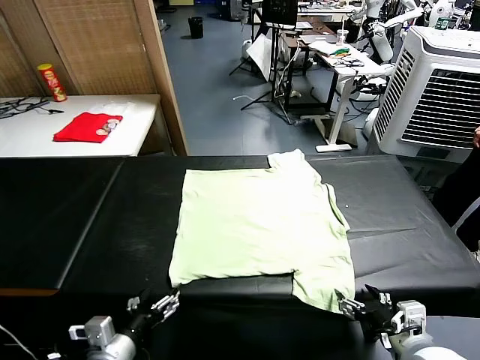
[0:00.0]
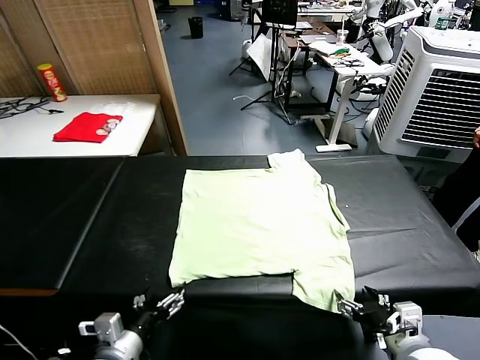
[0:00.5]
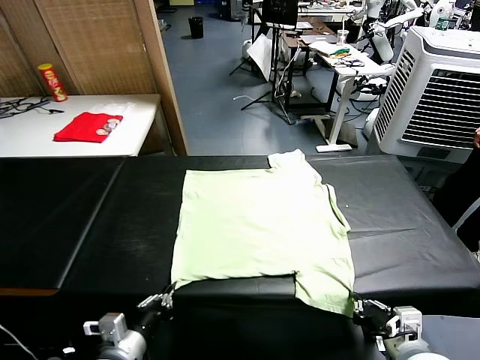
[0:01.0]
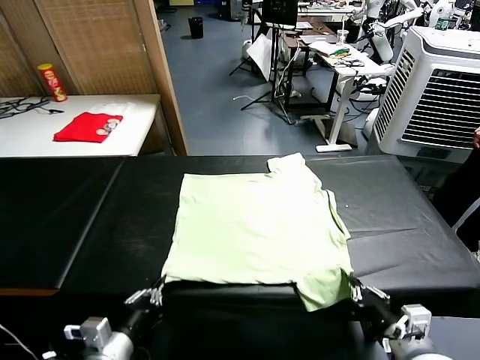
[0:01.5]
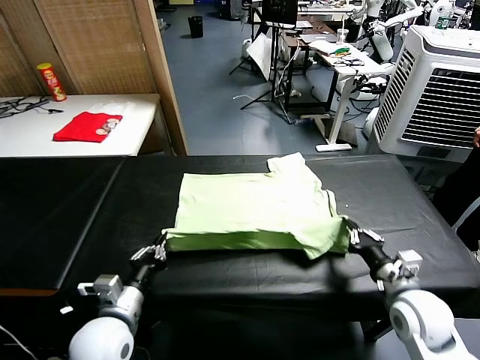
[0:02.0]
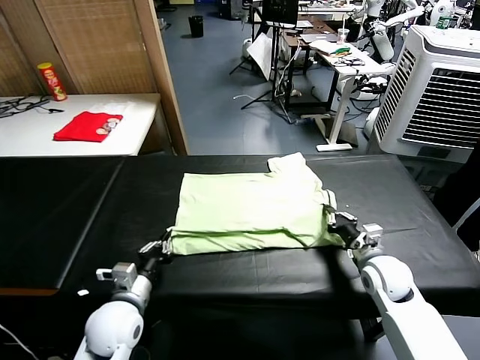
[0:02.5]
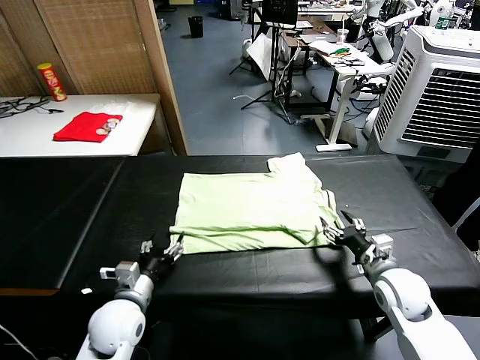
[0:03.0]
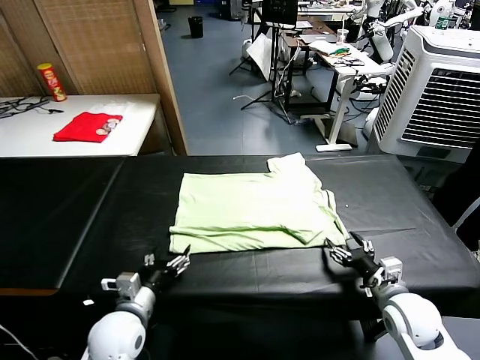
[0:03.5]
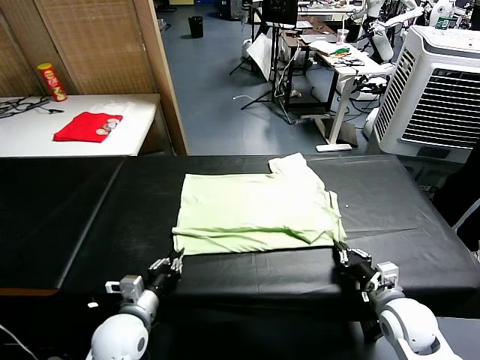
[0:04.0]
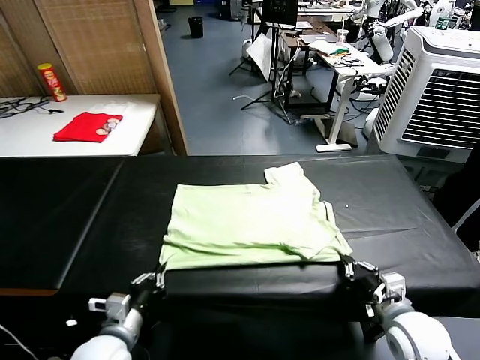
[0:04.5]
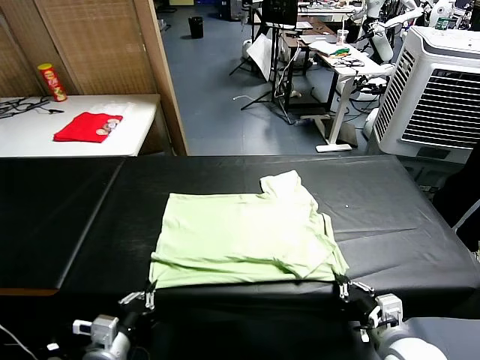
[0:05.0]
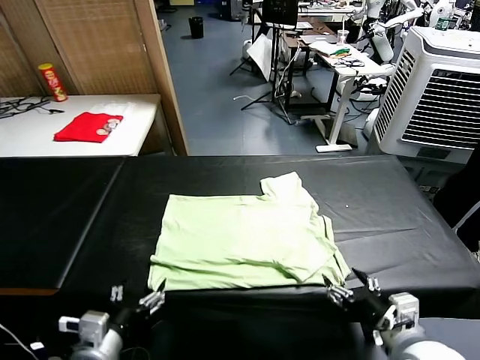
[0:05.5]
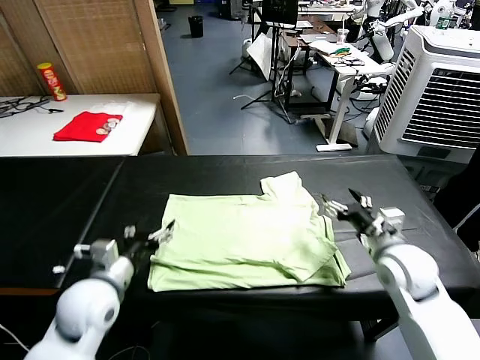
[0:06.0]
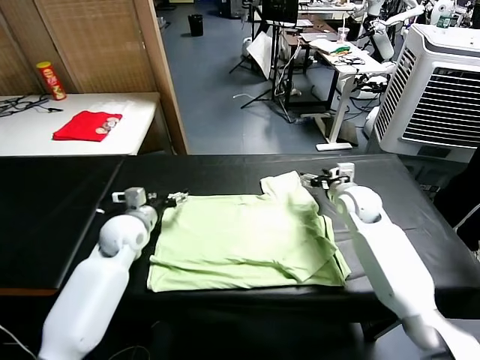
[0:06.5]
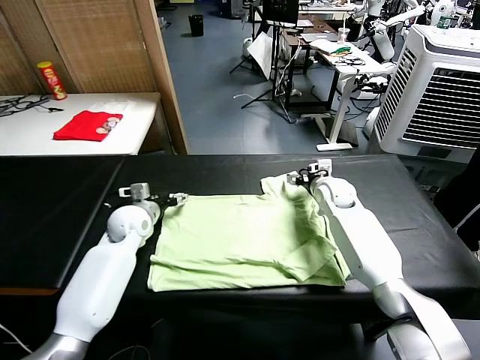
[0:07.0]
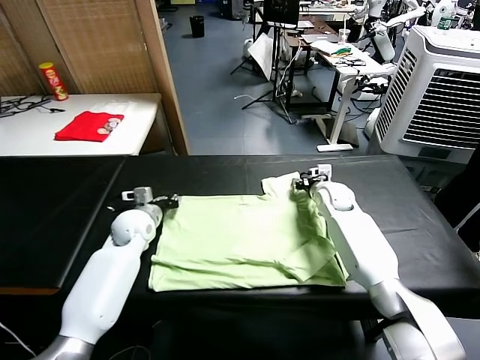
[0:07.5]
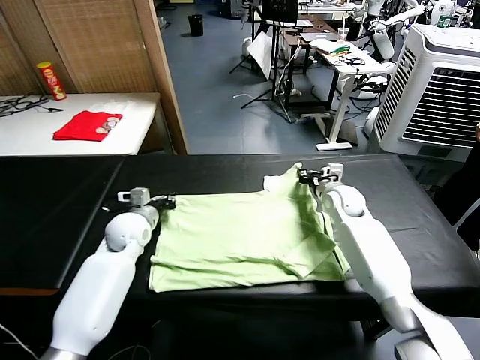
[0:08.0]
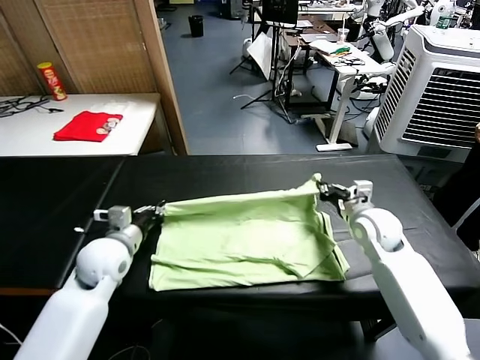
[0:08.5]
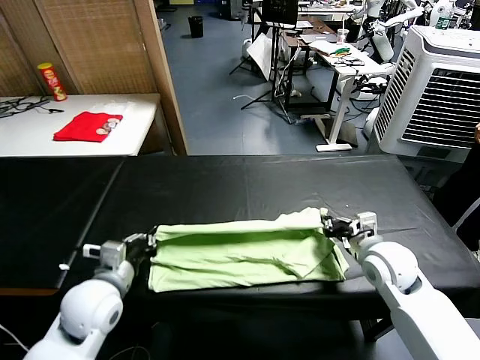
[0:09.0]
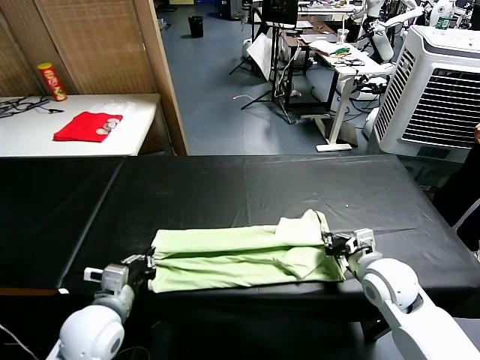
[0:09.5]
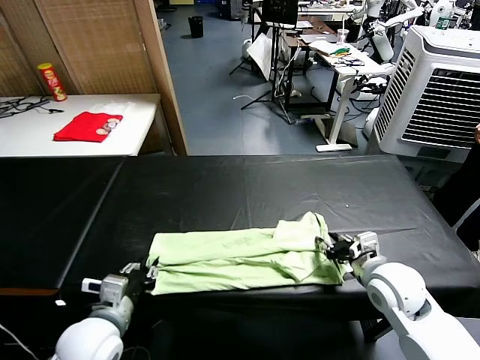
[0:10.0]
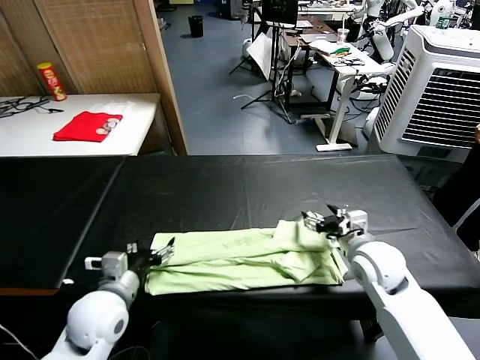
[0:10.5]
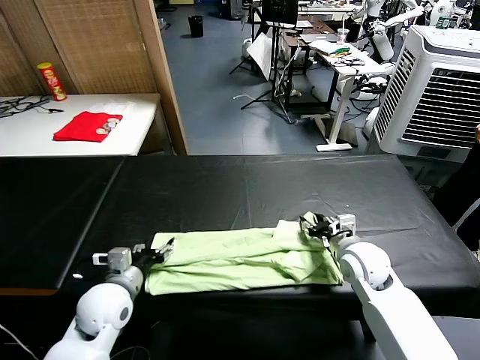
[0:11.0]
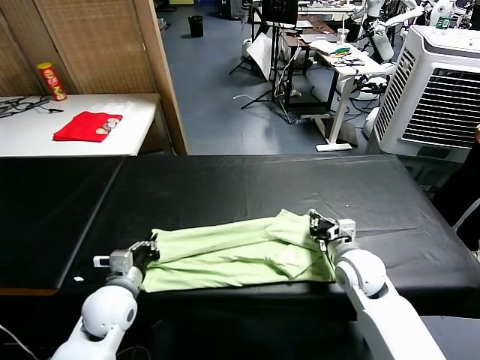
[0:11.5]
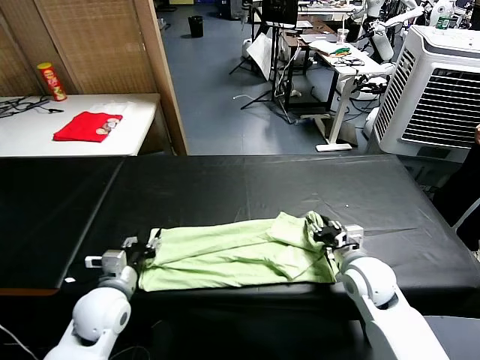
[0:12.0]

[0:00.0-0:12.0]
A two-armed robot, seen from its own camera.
Task of the whole recording: fold and organize the clothes.
Step, 0:00.0 to 0:01.0: use both grippers simultaneously to clamp the lower edge of the clothing fabric.
Step, 0:01.5 to 0:02.5: use both grippers to drag the lower edge of the fabric forward and fold it over the upper edge.
Step, 0:03.5 to 0:05.0: Drag the clothes downward with both gripper.
Step, 0:05.5 to 0:07.5: use both grippers simultaneously to clamp the upper edge of the clothing fabric.
Step, 0:08.0 to 0:10.0: use both grippers to drag the upper edge of the fabric backward and fold it over the lower edge.
0:02.0 to 0:04.0: The left gripper shifts by some 5 cm, and opens, then closes again. The right gripper travels backward by approximately 10 cm, and opens, then closes again.
0:04.0 to 0:06.0: The right gripper shifts roughly 20 cm forward and upward, and opens up. Meanwhile the left gripper heads upward and forward, covering approximately 10 cm, and opens.
0:06.0 to 0:08.0: The left gripper shifts about 15 cm forward, and closes; the right gripper heads forward, covering about 10 cm, and closes up.
0:08.0 to 0:10.0: The grippers both shift backward by roughly 20 cm. The left gripper opens its fingers, while the right gripper opens up.
0:10.0 to 0:12.0: The right gripper closes, then opens again; the left gripper shifts roughly 5 cm forward, and closes, then reopens.

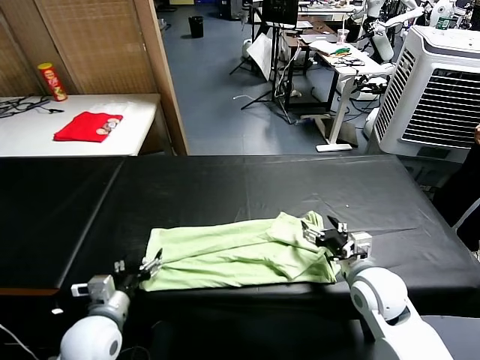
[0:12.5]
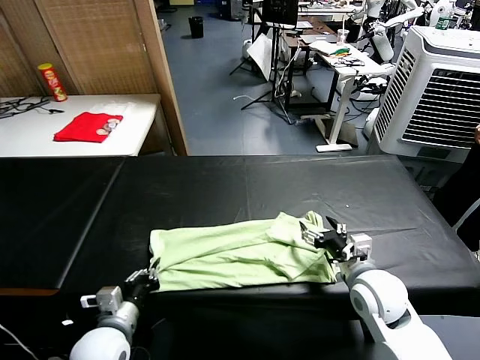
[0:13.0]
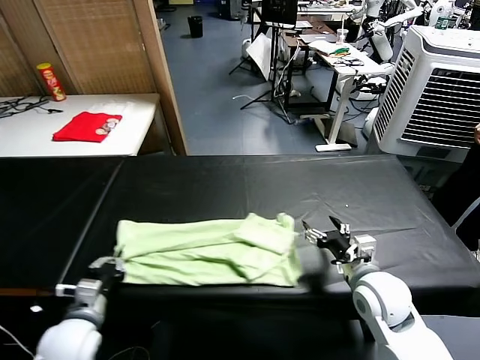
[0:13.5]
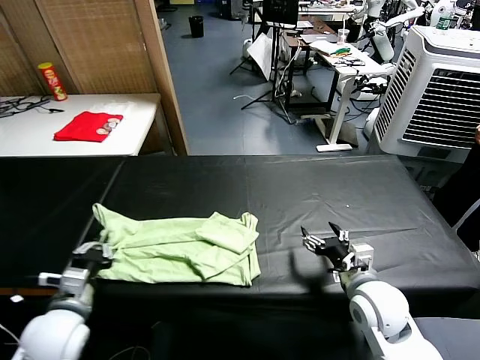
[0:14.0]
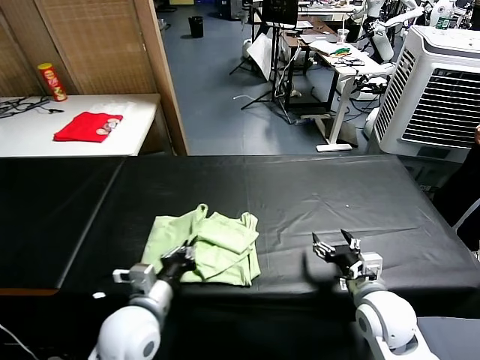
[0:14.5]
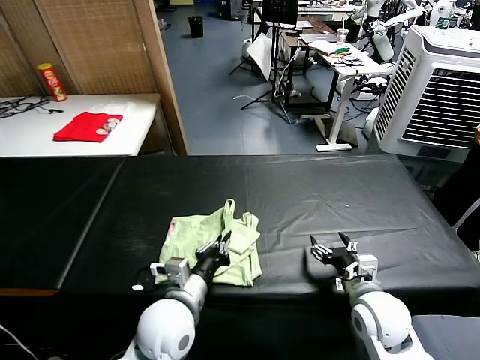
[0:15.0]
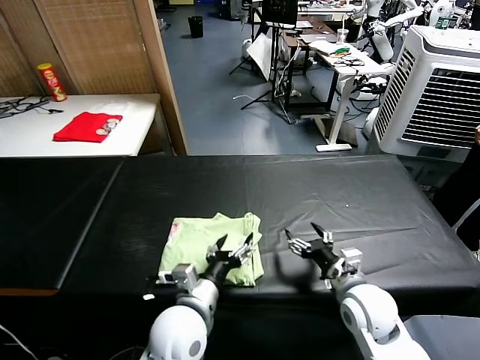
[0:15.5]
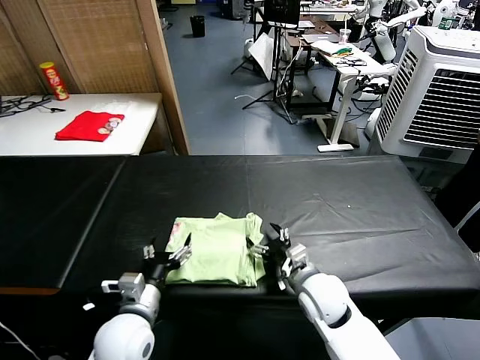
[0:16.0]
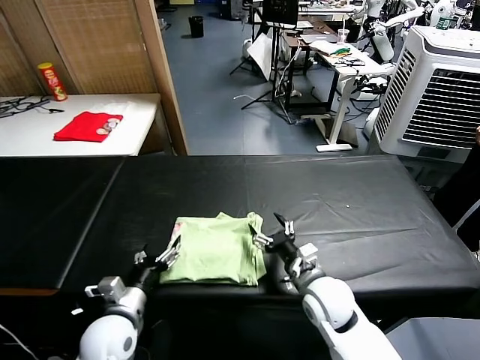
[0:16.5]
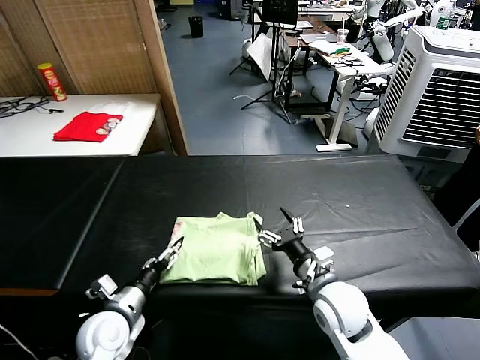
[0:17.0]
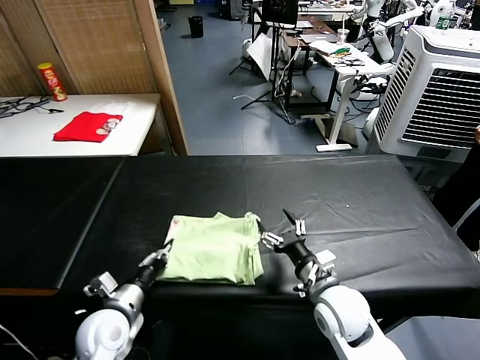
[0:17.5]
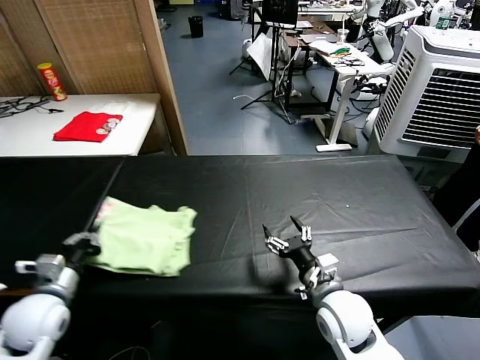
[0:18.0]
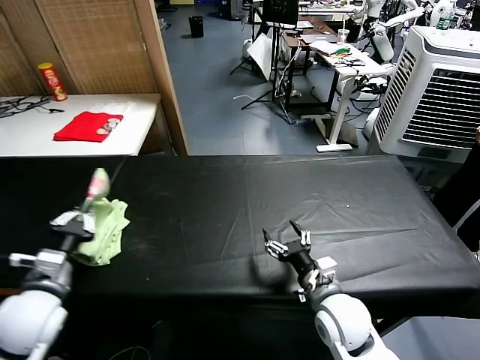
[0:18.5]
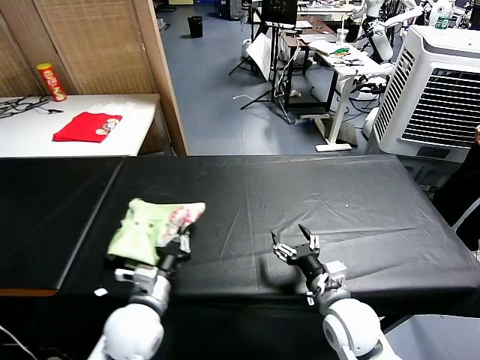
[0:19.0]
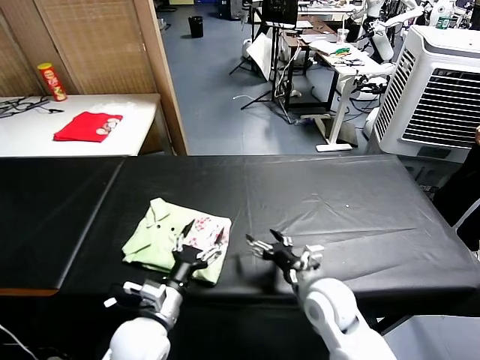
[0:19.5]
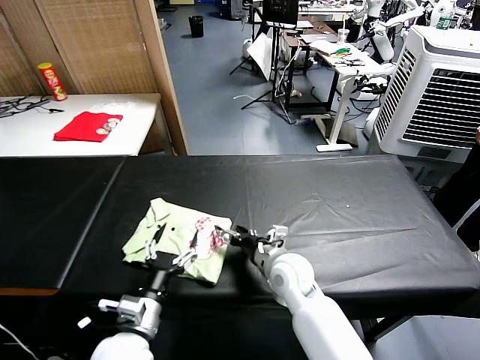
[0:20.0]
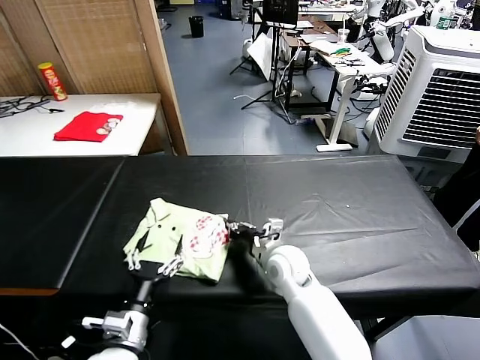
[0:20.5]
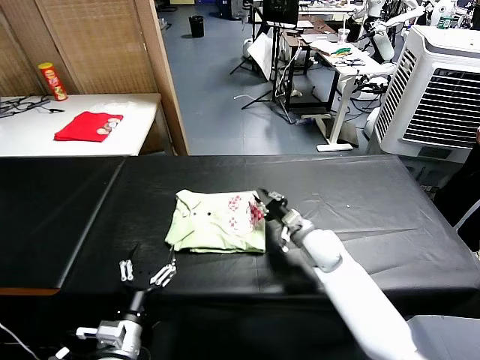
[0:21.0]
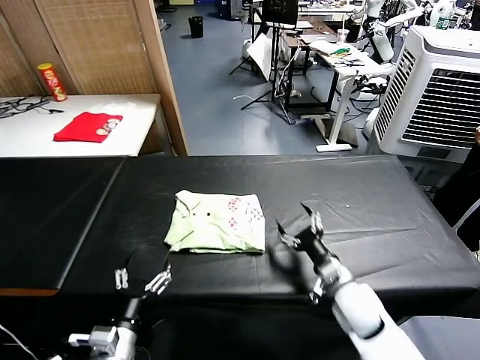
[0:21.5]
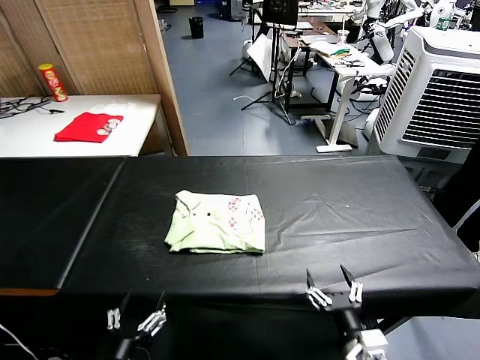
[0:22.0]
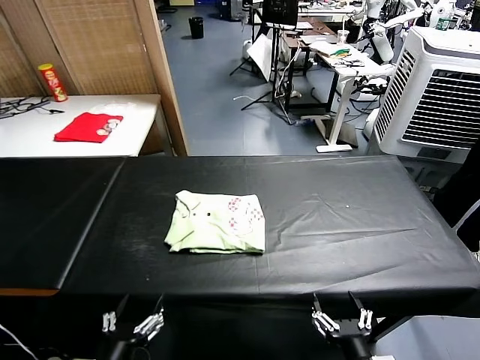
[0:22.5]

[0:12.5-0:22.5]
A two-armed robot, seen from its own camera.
Task of the whole recording: fold and organize the clothes.
Step, 0:13.5 to 0:15.0: use the left gripper to drag the left edge of the fabric to the left and folds it over the right edge.
Step, 0:15.5 to 0:19.0: Flip the folded clothes over with left gripper.
Step, 0:19.5 to 0:21.0: Drag the clothes to the center of the table.
0:12.5 to 0:14.5: The left gripper heads to the right, covering approximately 10 cm, and closes.
0:14.5 to 0:16.5: The left gripper shifts approximately 10 cm downward and to the left, and opens. Meanwhile the right gripper goes about 10 cm to the left.
0:16.5 to 0:18.5: The left gripper travels upward and to the left by roughly 15 cm, and closes up.
0:18.5 to 0:20.5: The right gripper heads forward and to the left, covering approximately 15 cm, and closes, while the left gripper is displaced to the right, downward and backward by some 20 cm, and opens its fingers.
0:20.5 to 0:22.5: The left gripper shifts some 10 cm backward, while the right gripper shifts approximately 30 cm backward, and opens up.

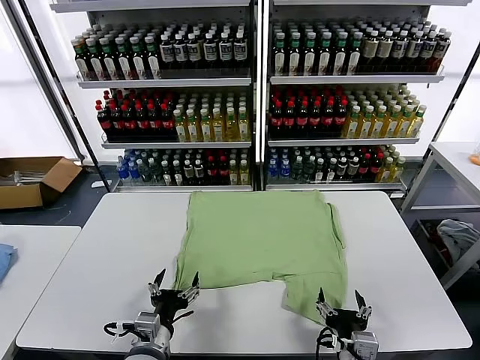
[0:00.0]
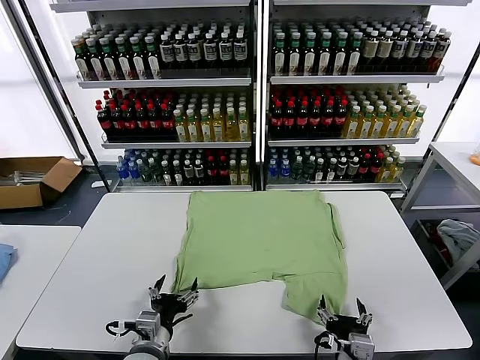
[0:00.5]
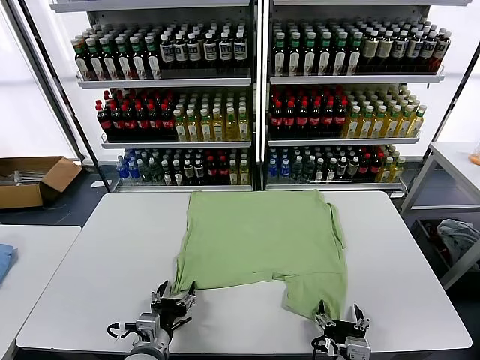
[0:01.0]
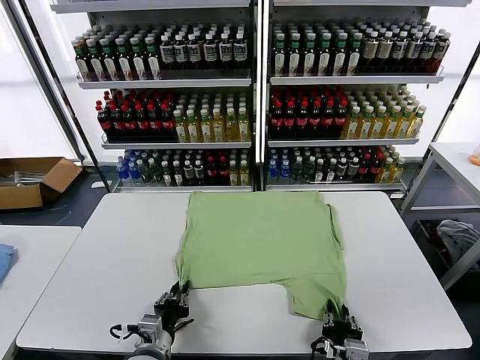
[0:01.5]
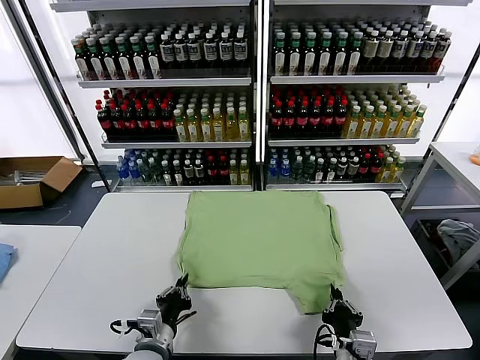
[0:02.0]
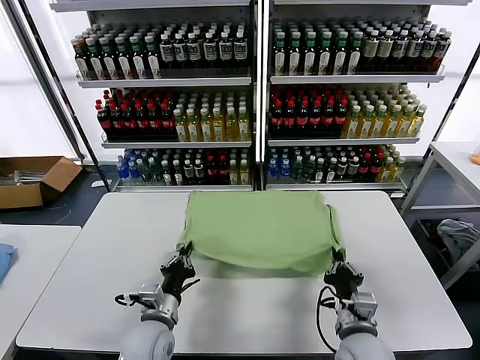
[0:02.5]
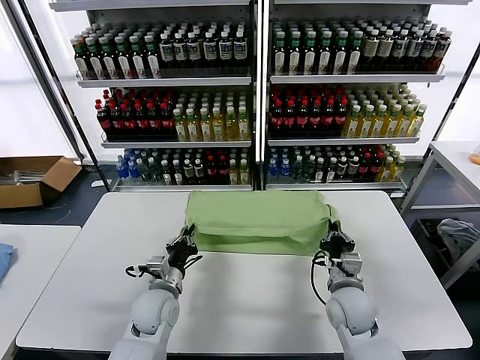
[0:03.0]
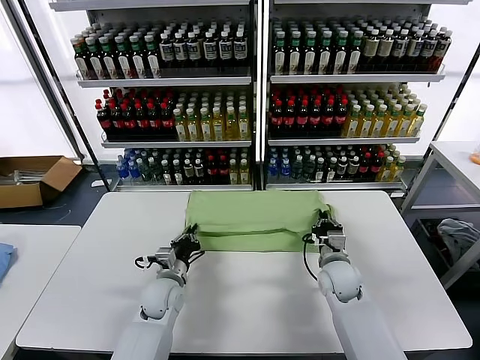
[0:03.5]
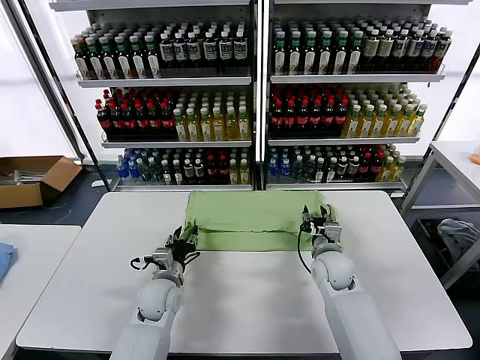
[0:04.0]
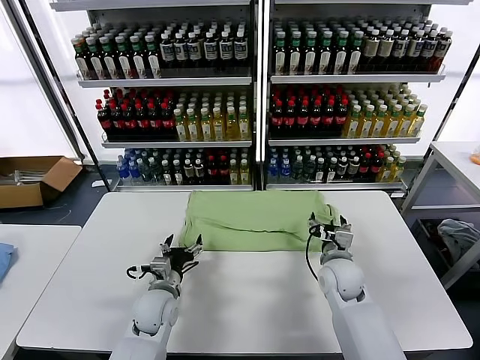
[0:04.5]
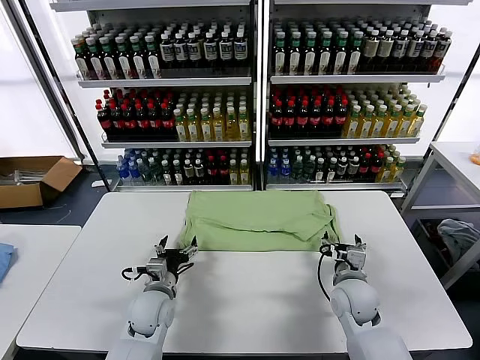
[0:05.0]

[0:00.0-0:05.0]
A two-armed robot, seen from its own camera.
Task of the whole recording: fold and organize the clothes.
Step, 0:00.0 to 0:01.5: use both grippers simultaneously to clamp the lower edge of the clothing fabric.
Step, 0:02.0 to 0:04.0: use both grippers to drag the lower edge of the fabric forward and fold it over the upper edge.
0:02.5 to 0:05.0: Both grippers travel together forward, roughly 10 cm. The left gripper opens. Meanwhile the right gripper opens.
